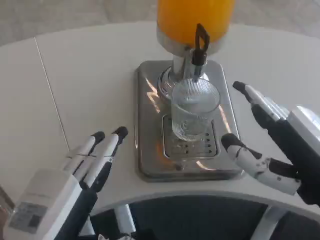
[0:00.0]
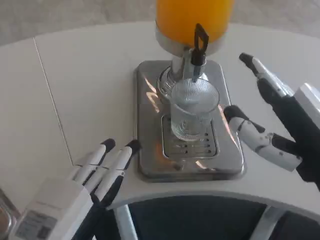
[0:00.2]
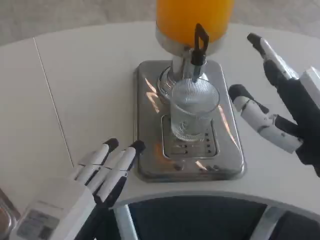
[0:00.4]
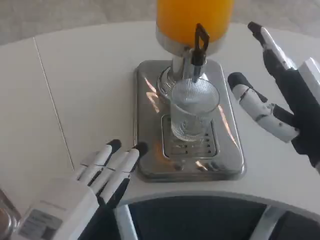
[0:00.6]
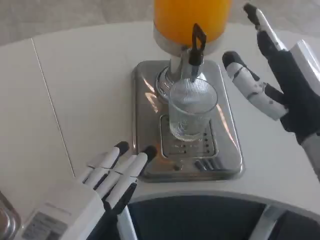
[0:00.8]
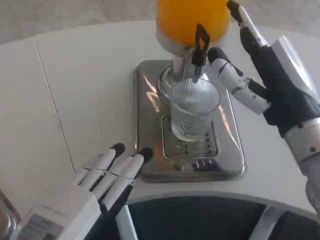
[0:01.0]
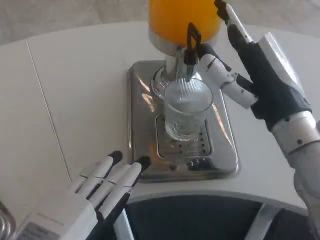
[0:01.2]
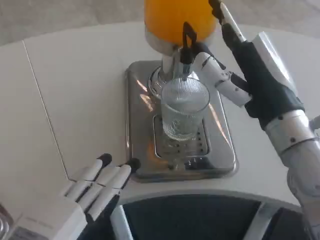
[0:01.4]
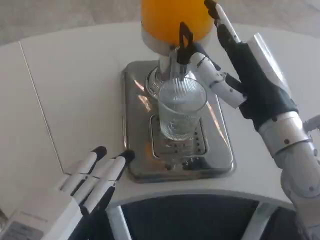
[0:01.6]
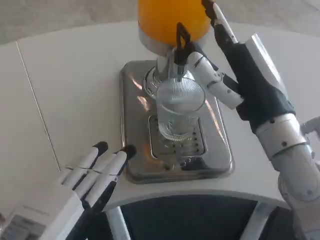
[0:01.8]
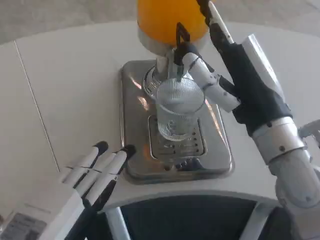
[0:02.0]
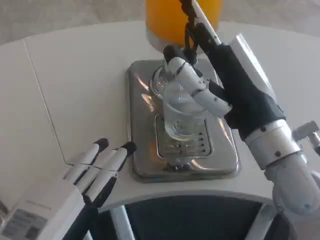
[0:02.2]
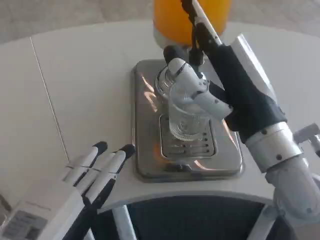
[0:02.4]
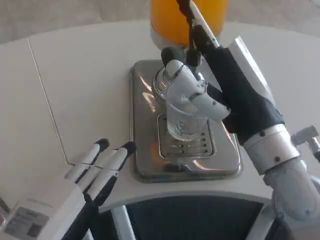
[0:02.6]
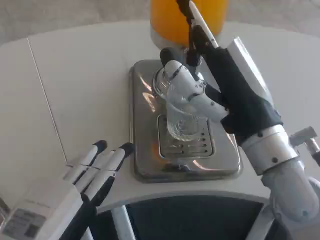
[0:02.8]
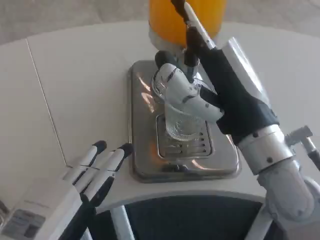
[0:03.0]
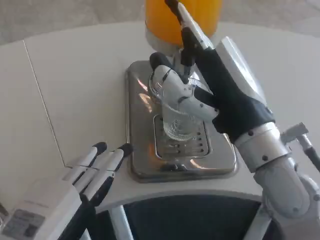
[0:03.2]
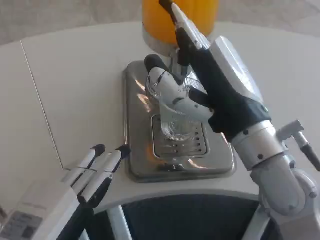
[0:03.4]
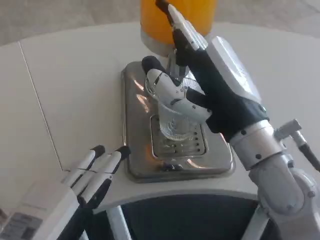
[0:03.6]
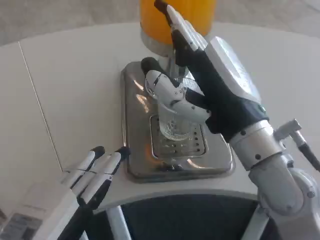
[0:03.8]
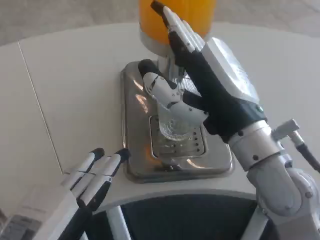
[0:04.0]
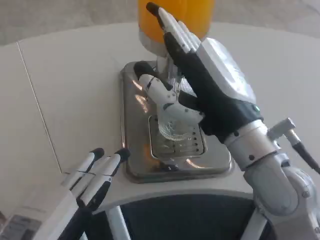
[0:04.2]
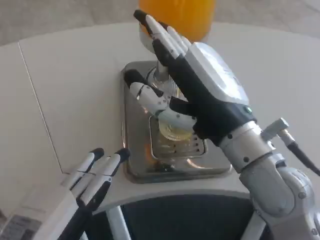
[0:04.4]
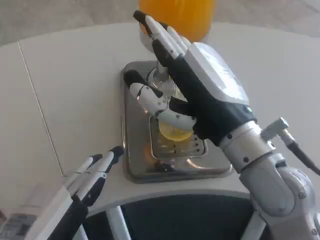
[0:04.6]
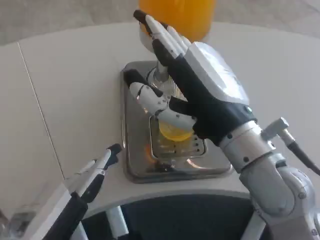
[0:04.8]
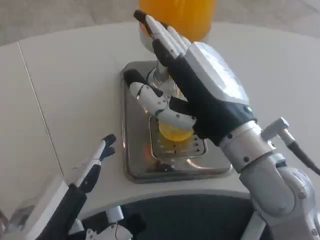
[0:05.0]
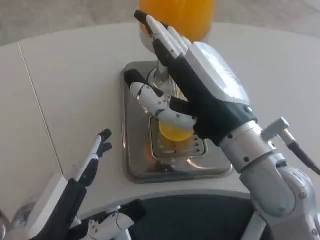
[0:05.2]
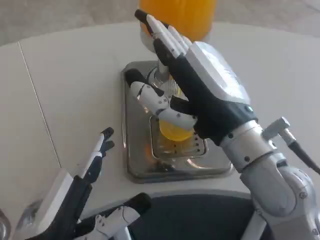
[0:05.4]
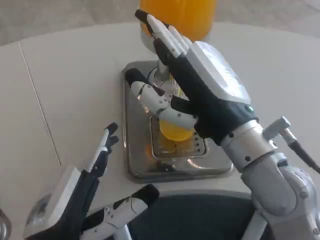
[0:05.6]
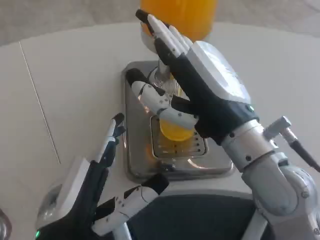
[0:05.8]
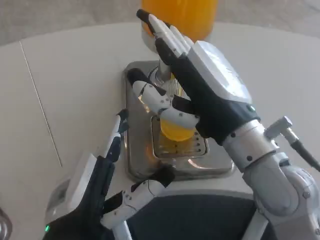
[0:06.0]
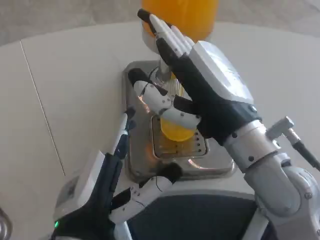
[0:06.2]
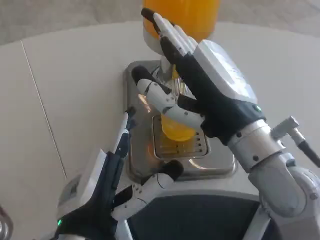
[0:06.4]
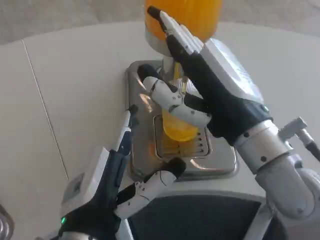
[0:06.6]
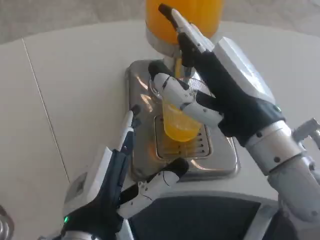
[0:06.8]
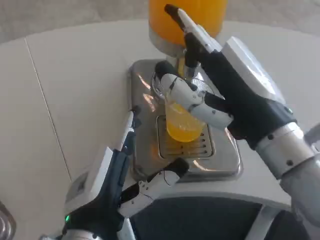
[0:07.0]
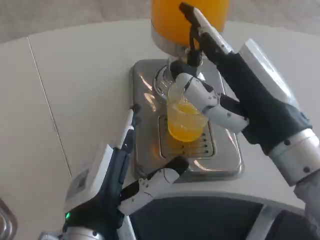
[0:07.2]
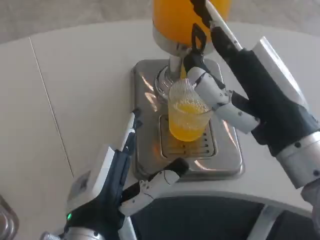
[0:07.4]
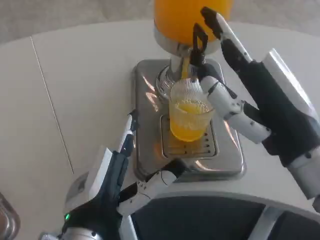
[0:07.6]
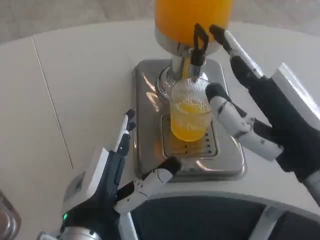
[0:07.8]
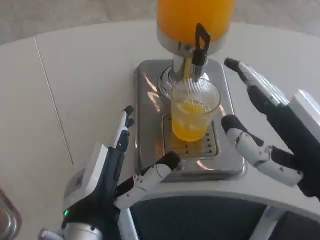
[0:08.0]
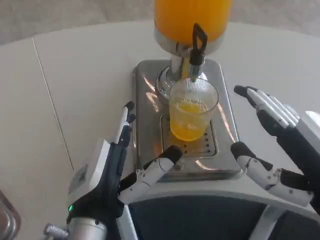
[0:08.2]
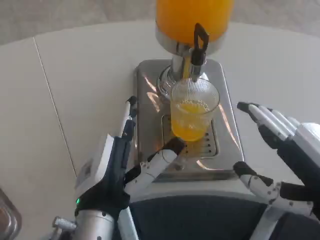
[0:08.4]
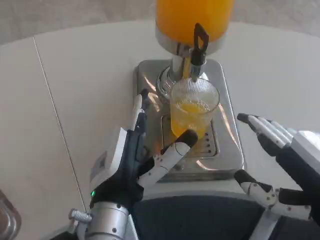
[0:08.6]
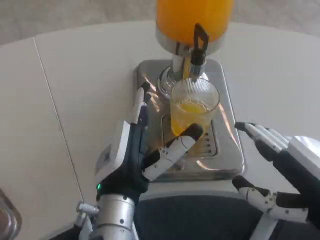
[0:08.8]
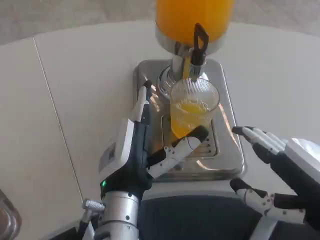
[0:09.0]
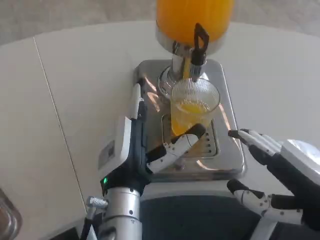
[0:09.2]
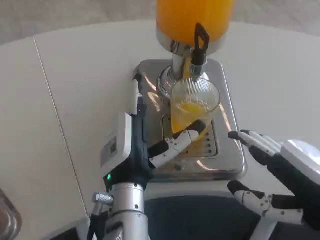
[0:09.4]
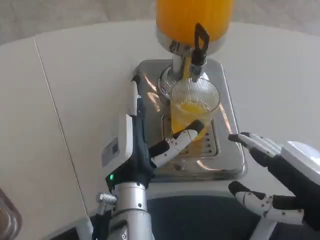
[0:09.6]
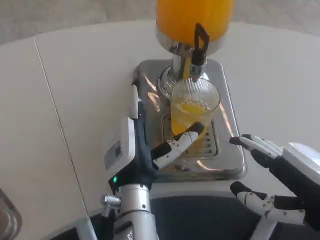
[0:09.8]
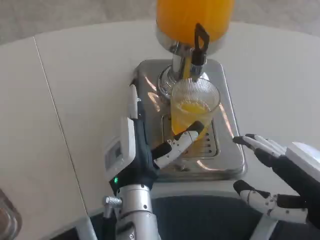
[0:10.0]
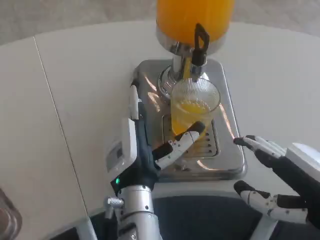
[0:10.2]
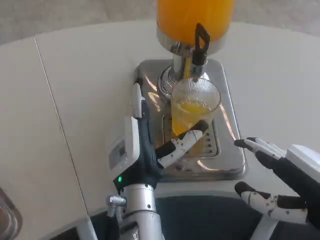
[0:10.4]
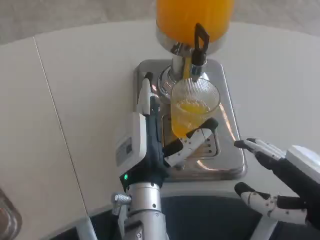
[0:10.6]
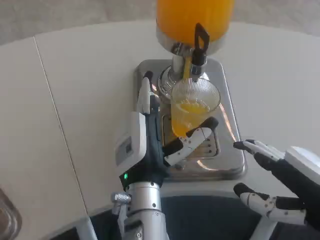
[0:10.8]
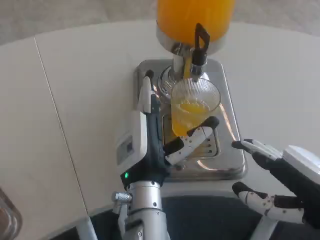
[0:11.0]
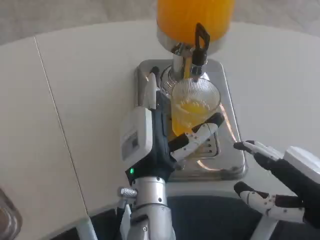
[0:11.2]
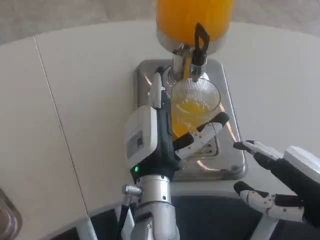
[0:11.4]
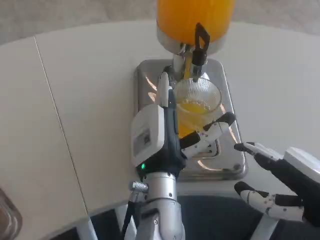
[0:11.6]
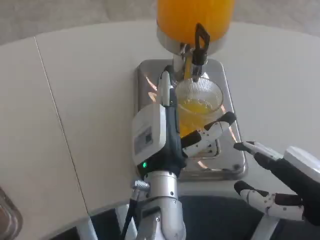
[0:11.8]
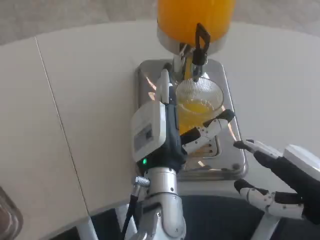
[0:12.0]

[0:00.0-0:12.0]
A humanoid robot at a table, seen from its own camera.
Task of the whole recording: Grasp the cup under the faucet to collect the drink, then remove the cup.
0.0 to 1.6 s: The right hand shifts approximately 10 cm forward and to the left.
4.4 to 6.0 s: The left hand is displaced to the right by approximately 5 cm.
6.0 to 7.6 s: The right hand moves to the right, approximately 5 cm.
7.6 to 9.0 s: The left hand goes about 5 cm forward; the right hand heads to the right, covering roughly 5 cm.
9.0 to 10.4 s: There are only small adjustments of the hands.
10.4 to 12.0 s: The hands stay close to where they were, moving slightly.

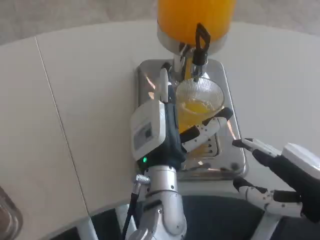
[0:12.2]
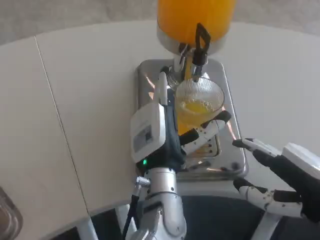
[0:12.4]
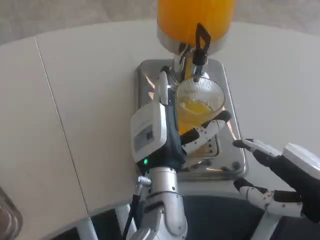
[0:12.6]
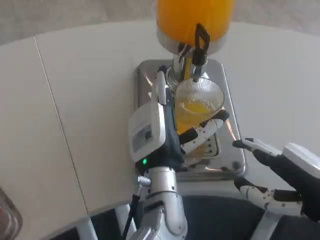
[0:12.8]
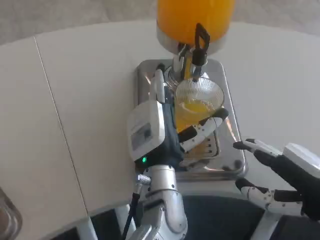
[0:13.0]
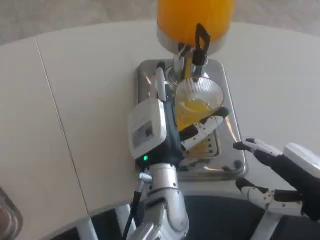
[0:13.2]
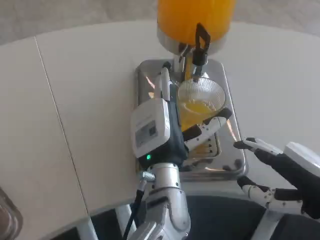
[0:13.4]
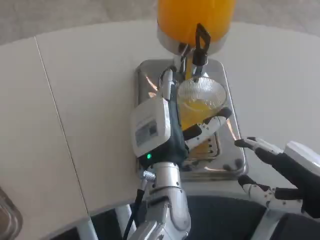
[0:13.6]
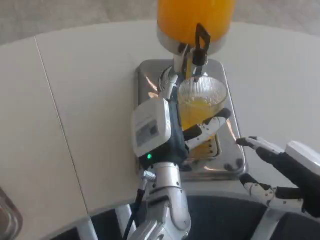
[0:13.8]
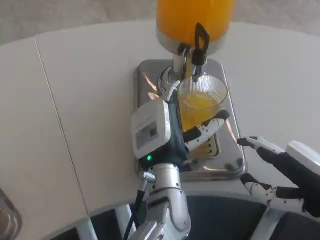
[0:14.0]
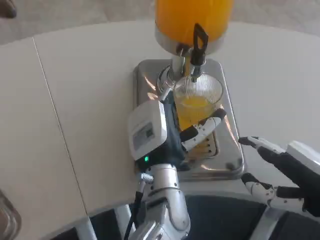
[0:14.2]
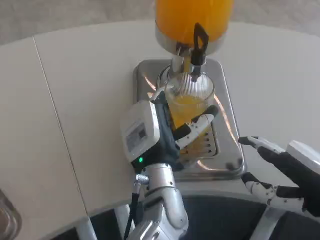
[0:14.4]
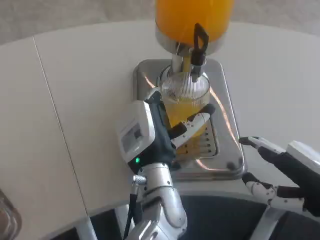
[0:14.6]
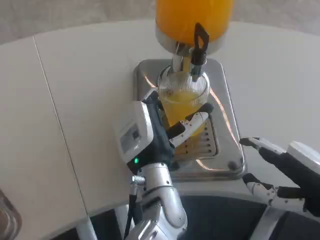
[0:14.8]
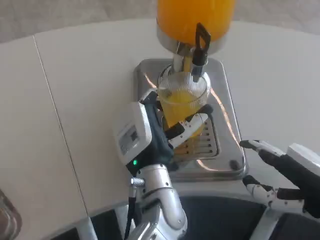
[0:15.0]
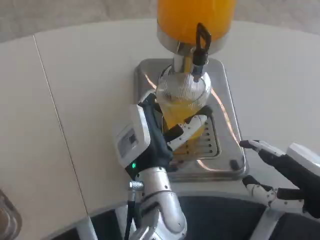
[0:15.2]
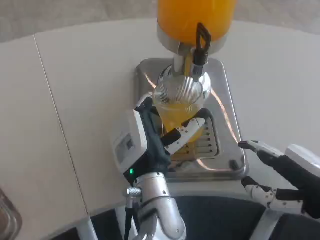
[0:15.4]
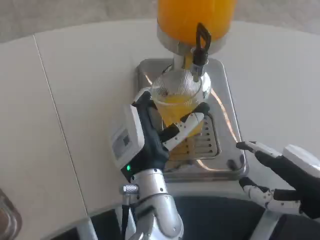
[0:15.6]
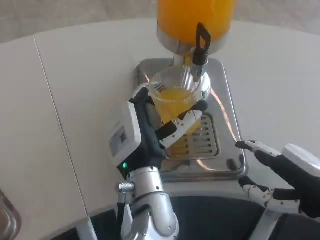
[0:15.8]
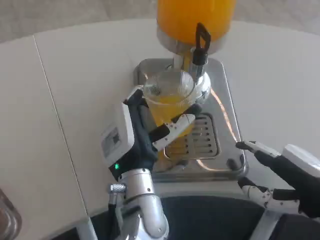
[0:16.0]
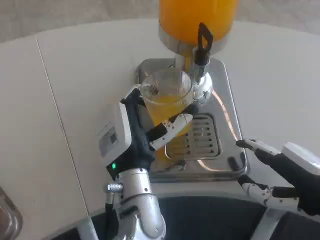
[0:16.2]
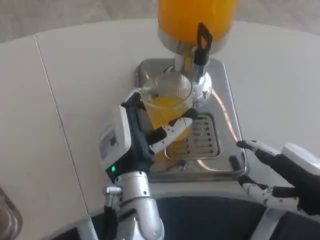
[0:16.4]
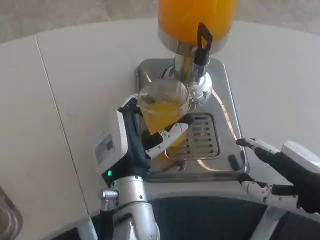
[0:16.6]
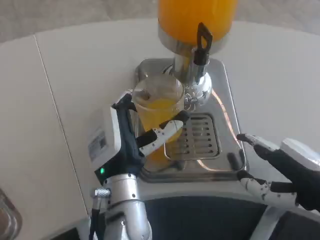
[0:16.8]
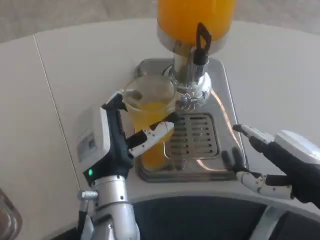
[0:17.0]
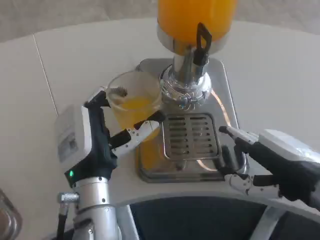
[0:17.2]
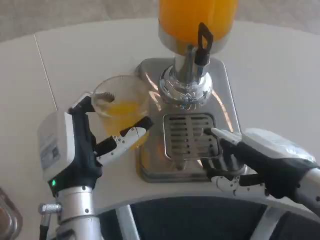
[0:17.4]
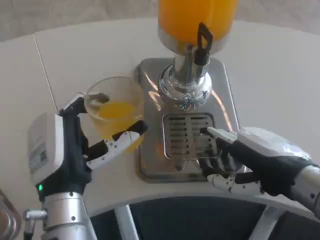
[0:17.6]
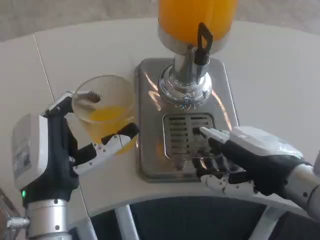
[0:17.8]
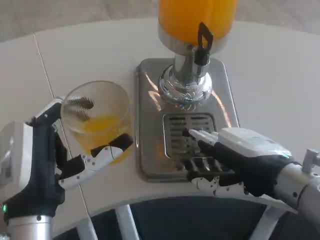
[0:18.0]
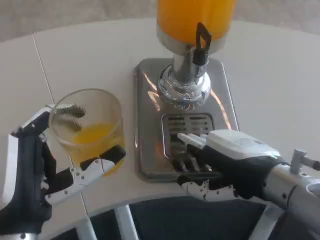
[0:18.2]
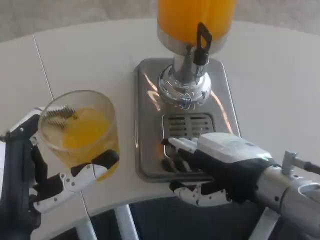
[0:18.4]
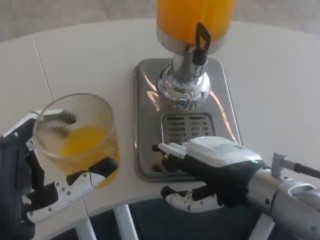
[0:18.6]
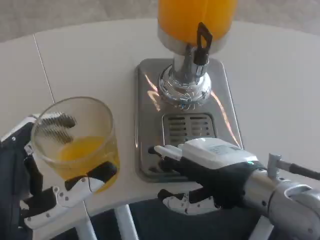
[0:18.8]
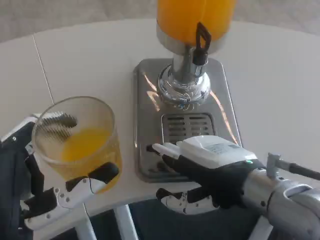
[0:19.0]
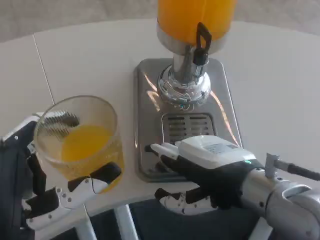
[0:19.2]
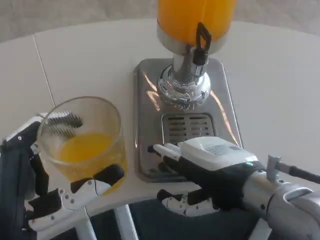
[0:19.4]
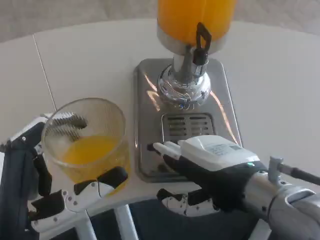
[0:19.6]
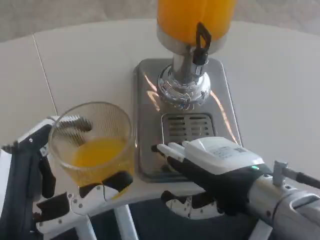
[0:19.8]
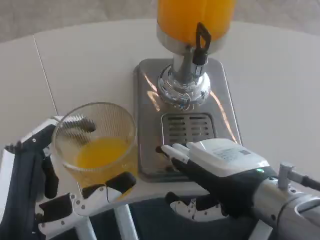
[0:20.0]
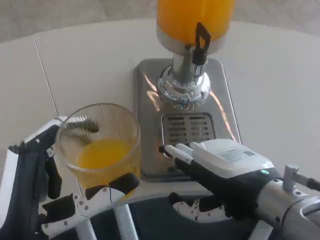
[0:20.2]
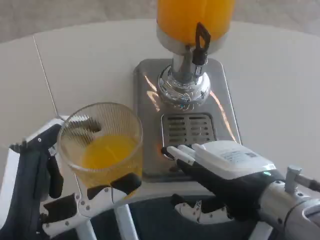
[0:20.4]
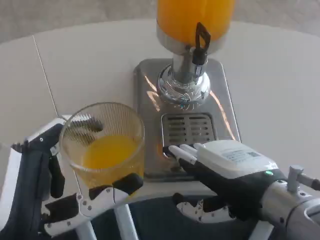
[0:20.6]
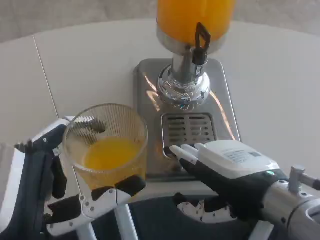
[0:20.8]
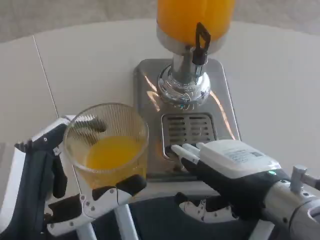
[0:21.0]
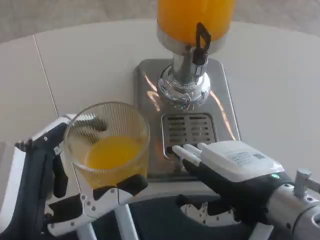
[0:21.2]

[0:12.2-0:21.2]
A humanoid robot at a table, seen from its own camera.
Task of the whole recording: Grasp the cup under the faucet to collect the drink, then remove the cup.
12.2 to 16.6 s: The hands stay close to where they were, moving slightly.
16.6 to 18.2 s: The right hand shifts about 5 cm to the left, while the left hand goes approximately 15 cm to the left and backward.
19.8 to 21.2 s: The hands stay close to where they were, moving slightly.

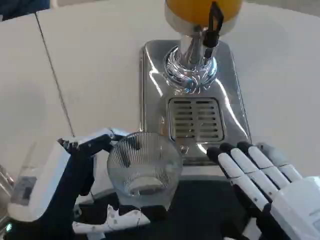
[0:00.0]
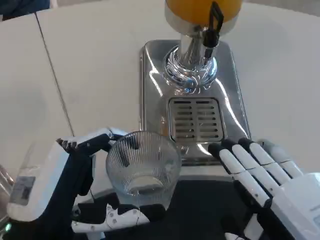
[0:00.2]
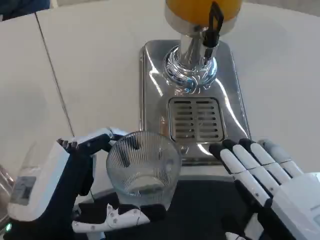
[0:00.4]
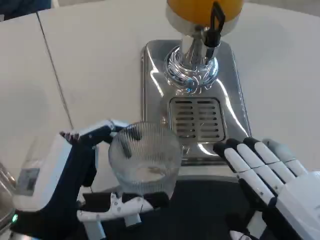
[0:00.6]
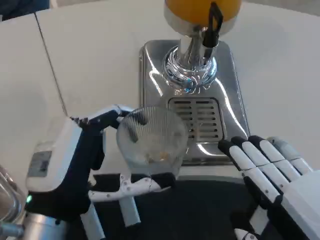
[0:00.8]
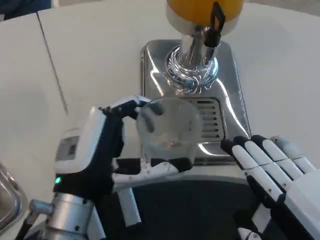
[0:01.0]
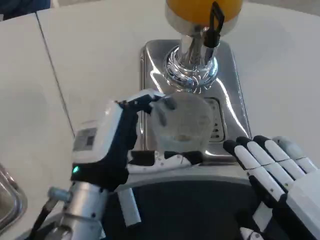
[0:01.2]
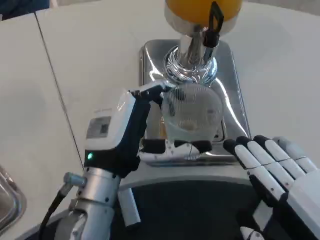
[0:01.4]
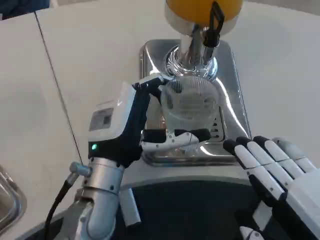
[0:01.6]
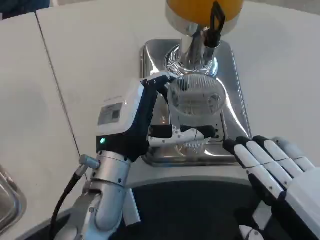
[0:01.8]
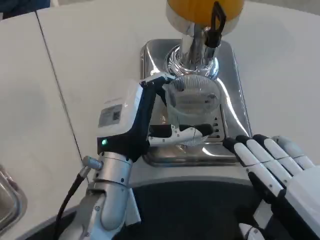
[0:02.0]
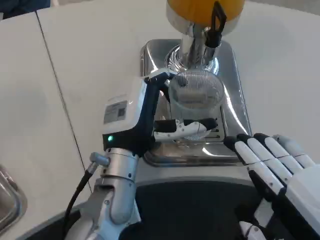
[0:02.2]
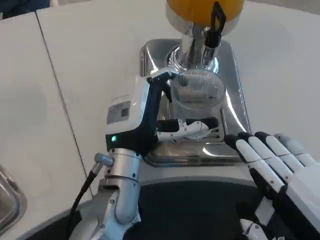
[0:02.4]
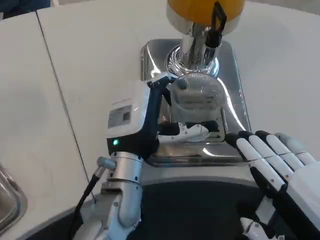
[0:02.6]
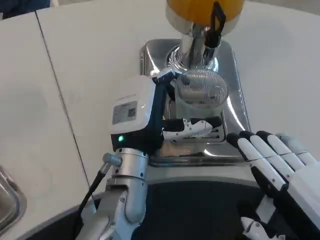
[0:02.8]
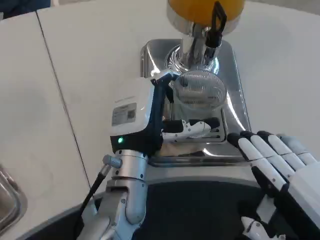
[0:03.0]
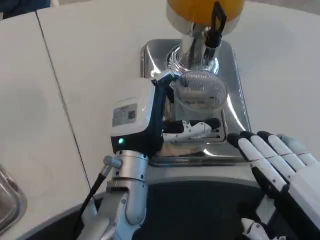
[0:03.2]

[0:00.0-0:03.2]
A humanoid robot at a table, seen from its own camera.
Task of the whole recording: Grasp the cup under the faucet to collect the drink, then remove the cup.
0.0 to 1.6 s: The left hand is displaced forward and to the right by roughly 15 cm.
1.6 to 3.2 s: The left hand shifts by about 5 cm.
